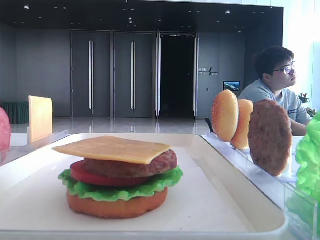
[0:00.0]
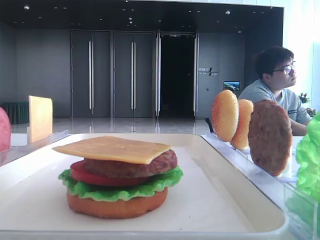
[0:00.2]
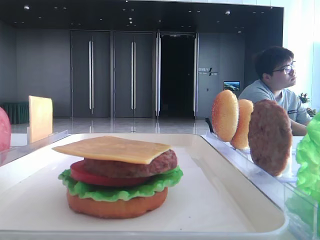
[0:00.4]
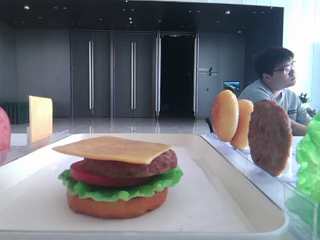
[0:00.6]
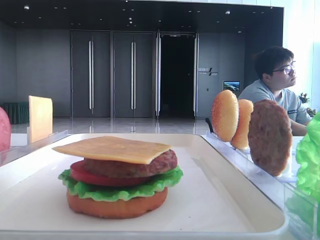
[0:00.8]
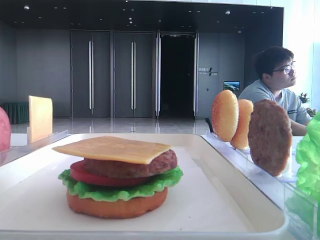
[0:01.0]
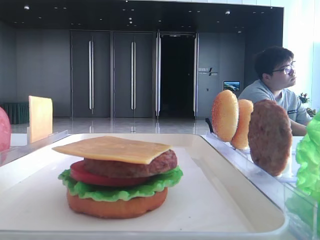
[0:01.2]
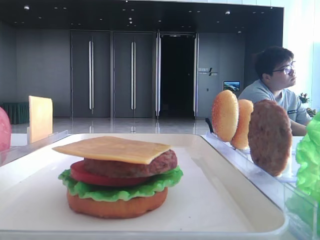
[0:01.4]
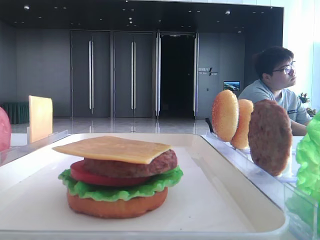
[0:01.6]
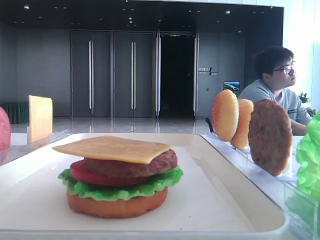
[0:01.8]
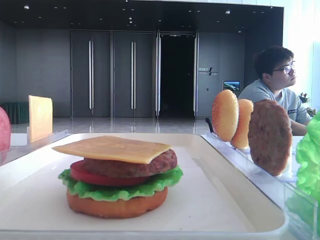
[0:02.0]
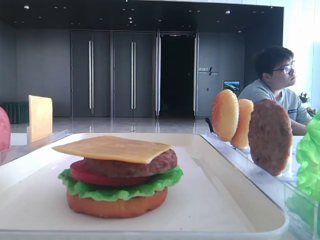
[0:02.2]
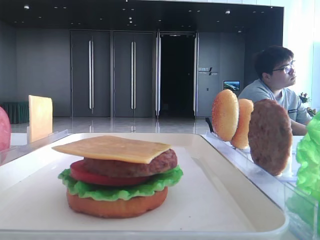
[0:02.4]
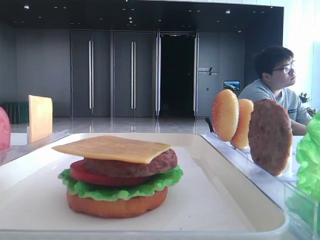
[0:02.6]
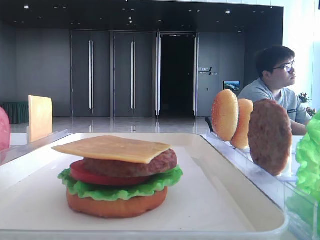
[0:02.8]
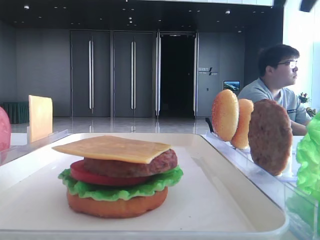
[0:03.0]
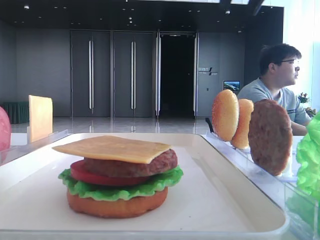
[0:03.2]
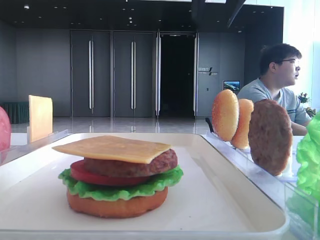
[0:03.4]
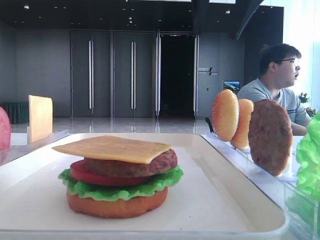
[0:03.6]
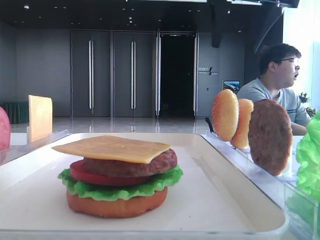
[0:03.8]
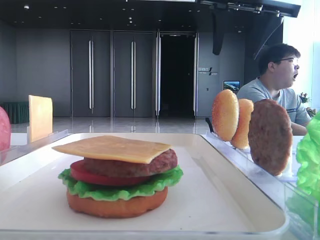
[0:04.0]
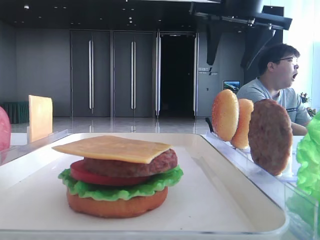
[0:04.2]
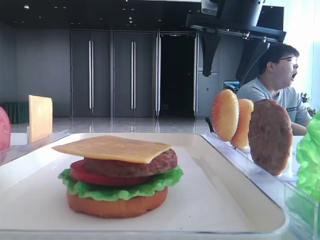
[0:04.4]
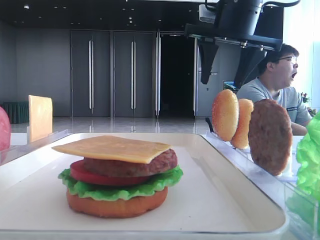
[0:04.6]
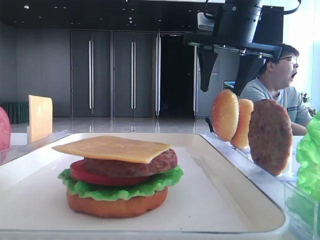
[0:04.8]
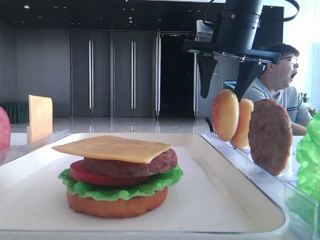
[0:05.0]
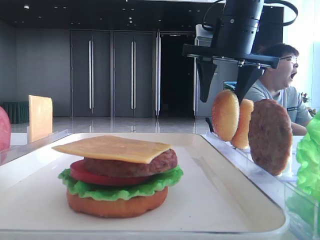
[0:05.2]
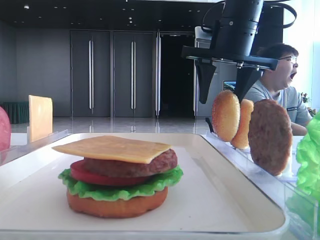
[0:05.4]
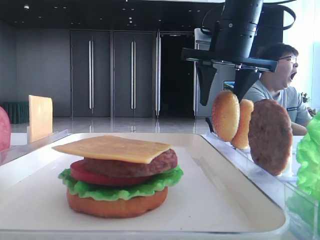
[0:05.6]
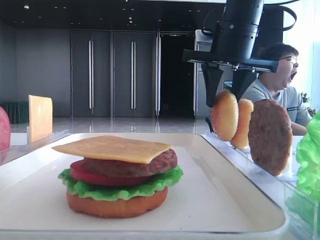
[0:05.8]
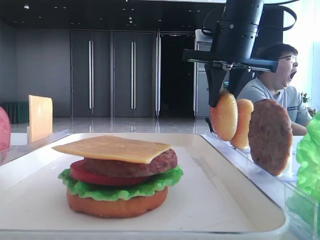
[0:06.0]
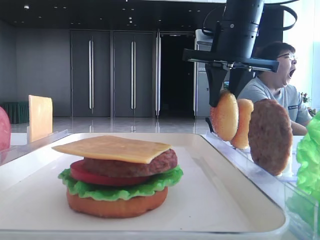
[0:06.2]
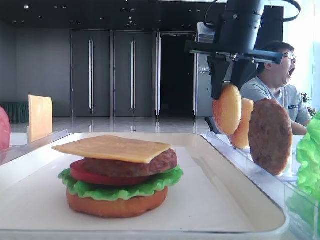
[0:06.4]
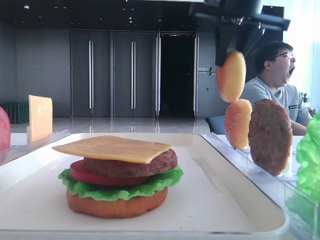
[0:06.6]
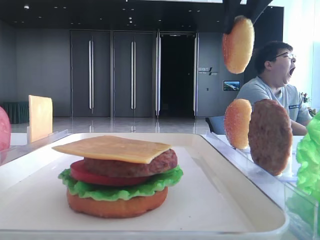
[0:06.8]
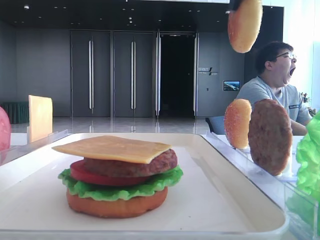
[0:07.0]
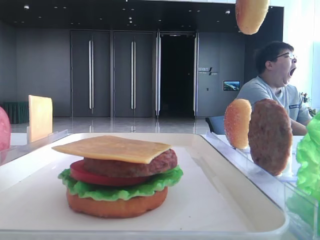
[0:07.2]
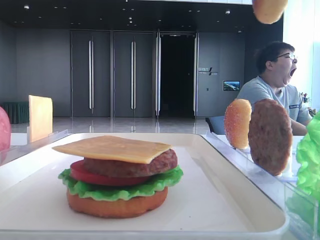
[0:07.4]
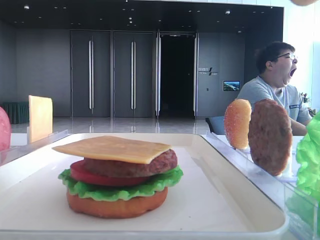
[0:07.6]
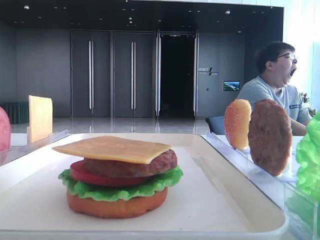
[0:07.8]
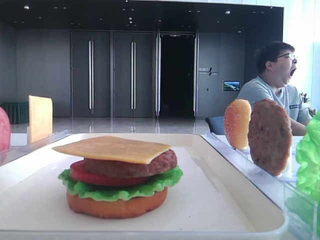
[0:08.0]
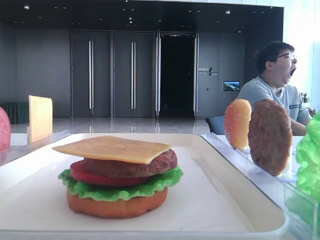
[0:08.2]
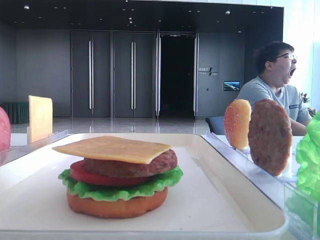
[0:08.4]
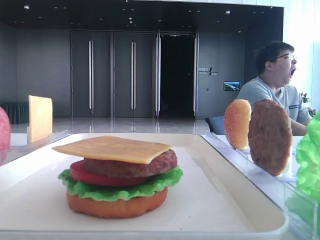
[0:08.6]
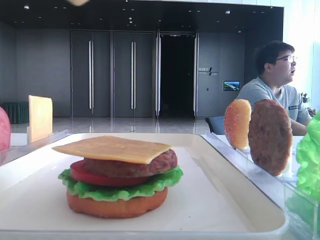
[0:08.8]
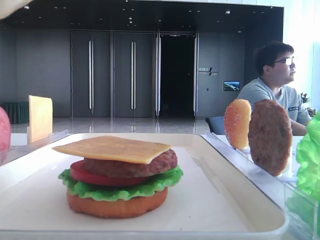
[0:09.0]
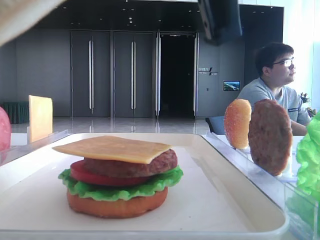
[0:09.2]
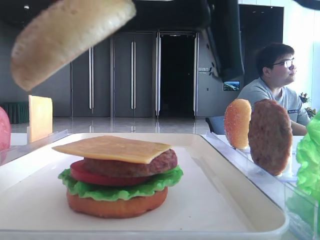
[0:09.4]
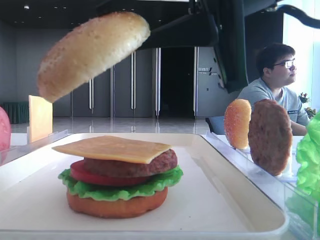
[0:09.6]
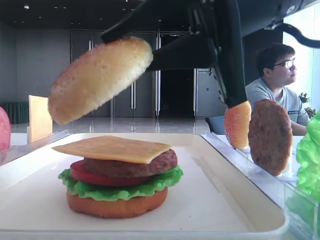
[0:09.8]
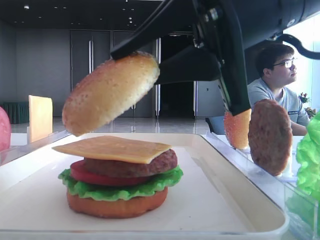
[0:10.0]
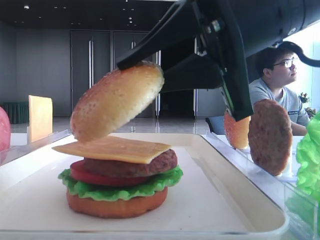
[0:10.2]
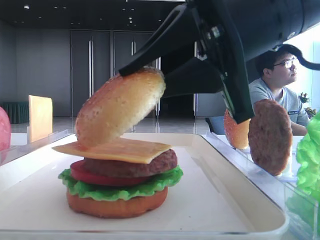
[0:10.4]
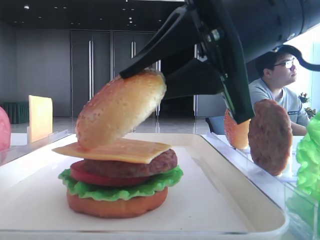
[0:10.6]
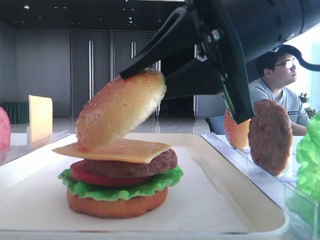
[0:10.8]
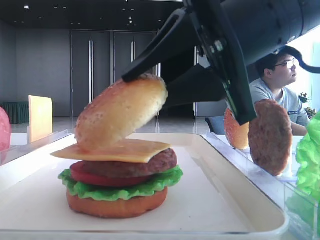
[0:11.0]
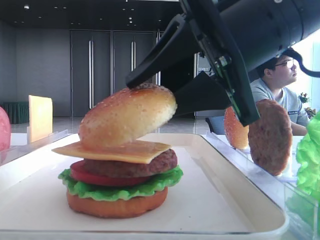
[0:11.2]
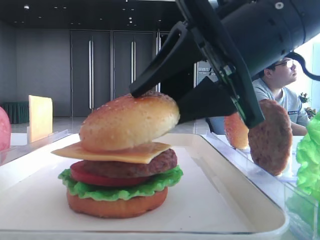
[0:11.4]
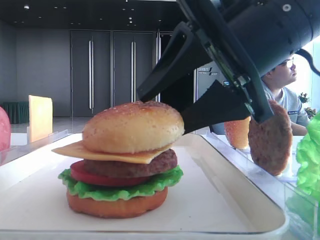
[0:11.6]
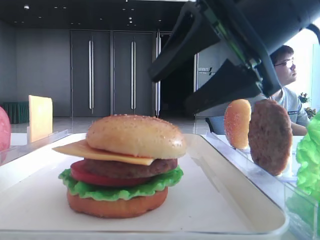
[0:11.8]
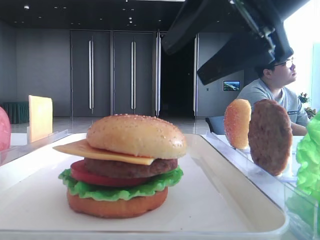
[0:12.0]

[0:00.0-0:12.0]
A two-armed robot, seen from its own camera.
Step, 0:00.0 to 0:06.0: Pick up the top bread slice with the right hand.
Step, 0:06.4 to 0:11.6: Place the top bread slice on the cheese with the right hand.
0:01.6 to 0:03.0: The right gripper heads forward, covering approximately 25 cm.
0:03.0 to 0:04.4: The right gripper travels downward, to the left and forward by roughly 15 cm, and opens up.
0:04.4 to 0:06.0: The right gripper shifts by approximately 5 cm, and closes.
0:06.0 to 0:07.6: The right gripper goes about 25 cm backward and upward.
0:07.6 to 0:09.0: The right gripper shifts some 15 cm downward, to the left and backward.
0:09.0 to 0:10.4: The right gripper heads forward and downward, covering approximately 15 cm.
0:10.4 to 0:12.0: The right gripper moves roughly 5 cm, and opens its fingers.

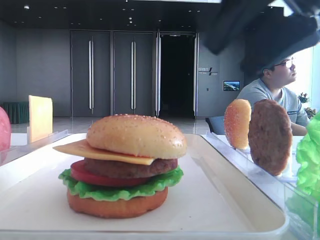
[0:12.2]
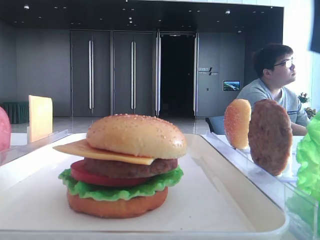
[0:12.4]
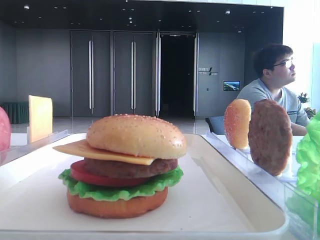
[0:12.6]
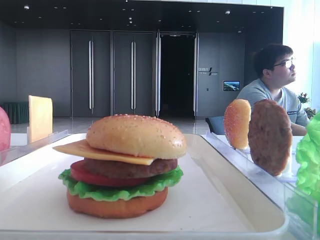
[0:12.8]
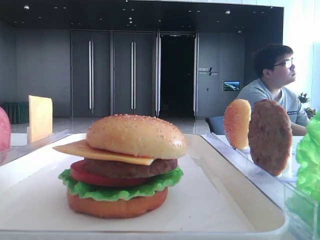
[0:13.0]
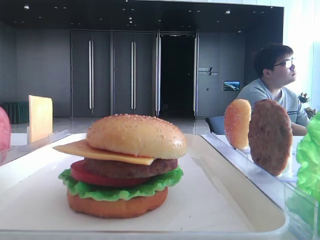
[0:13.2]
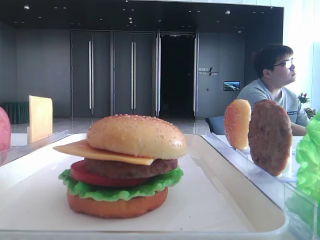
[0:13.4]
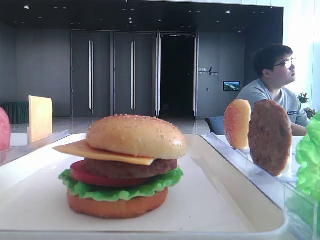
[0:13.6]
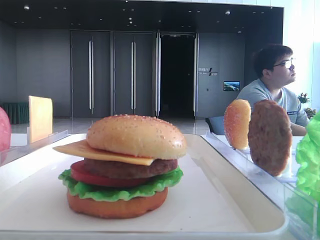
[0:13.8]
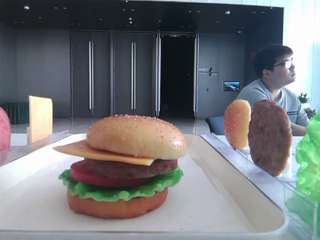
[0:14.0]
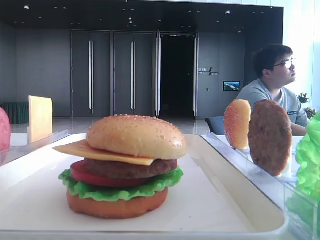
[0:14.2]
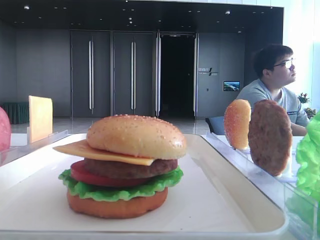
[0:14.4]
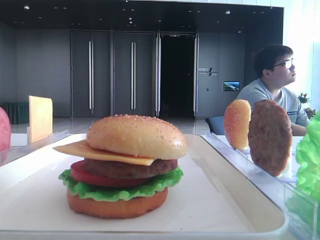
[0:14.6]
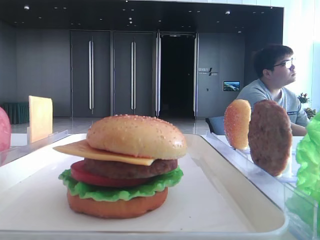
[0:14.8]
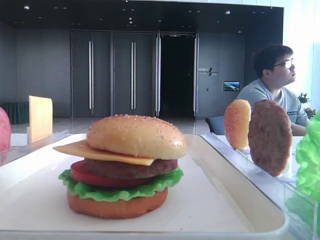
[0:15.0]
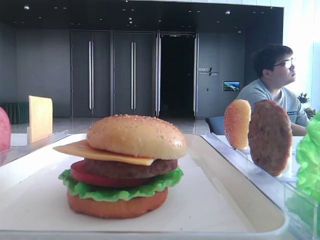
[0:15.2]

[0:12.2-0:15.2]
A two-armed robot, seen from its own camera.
0:12.2 to 0:13.8: The right gripper moves backward and to the right, some 30 cm.

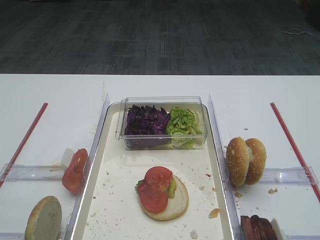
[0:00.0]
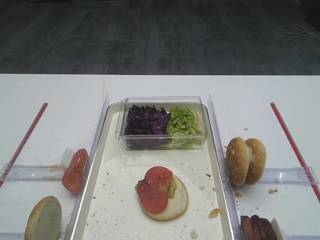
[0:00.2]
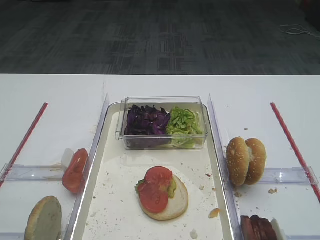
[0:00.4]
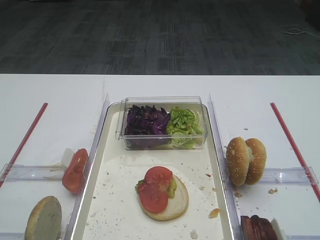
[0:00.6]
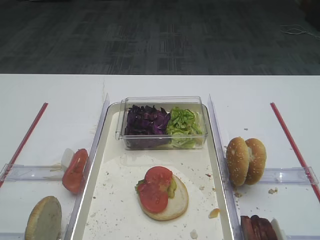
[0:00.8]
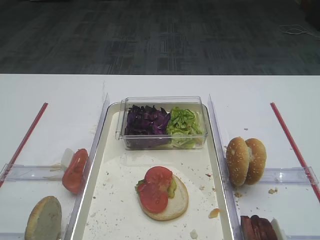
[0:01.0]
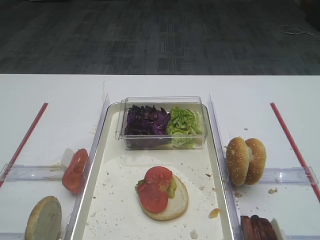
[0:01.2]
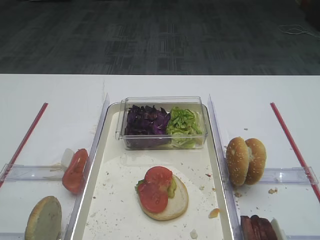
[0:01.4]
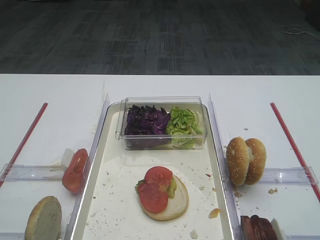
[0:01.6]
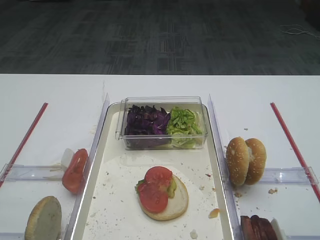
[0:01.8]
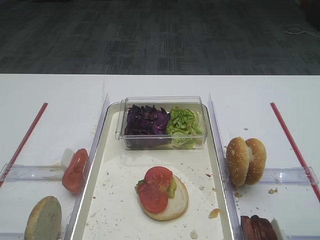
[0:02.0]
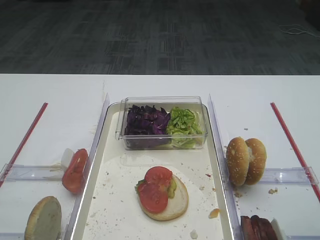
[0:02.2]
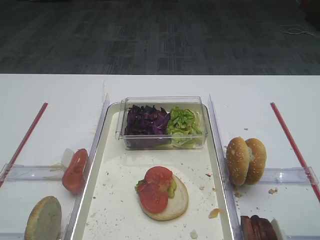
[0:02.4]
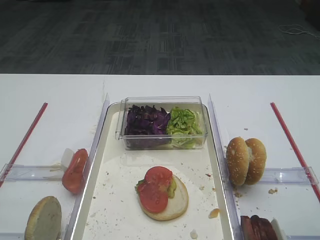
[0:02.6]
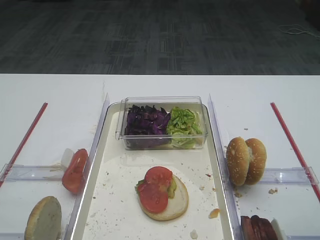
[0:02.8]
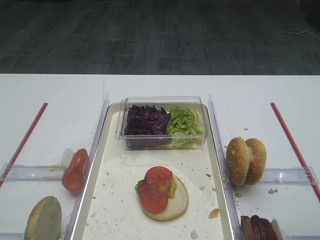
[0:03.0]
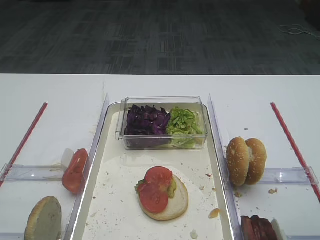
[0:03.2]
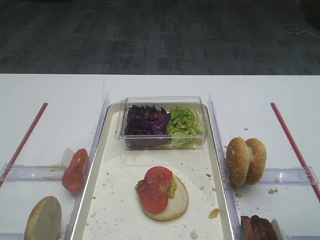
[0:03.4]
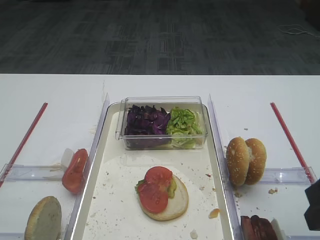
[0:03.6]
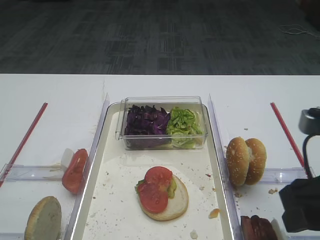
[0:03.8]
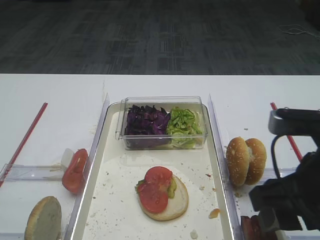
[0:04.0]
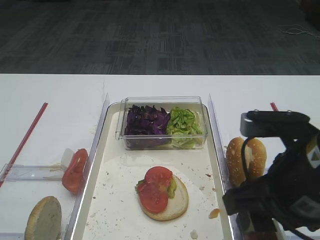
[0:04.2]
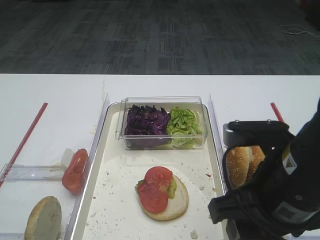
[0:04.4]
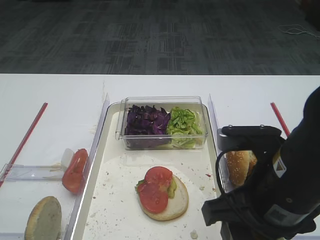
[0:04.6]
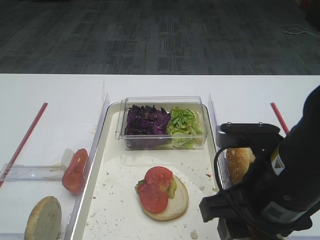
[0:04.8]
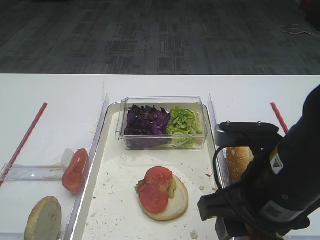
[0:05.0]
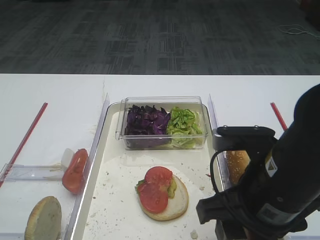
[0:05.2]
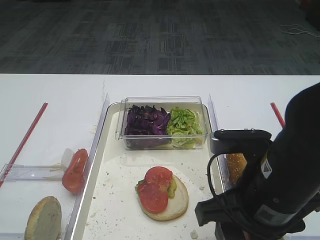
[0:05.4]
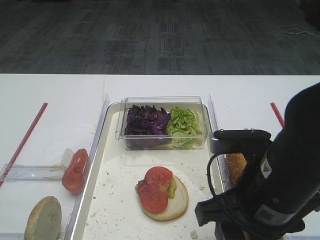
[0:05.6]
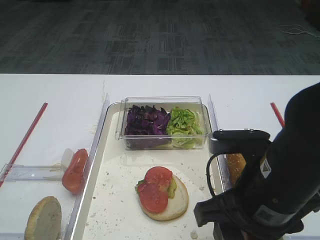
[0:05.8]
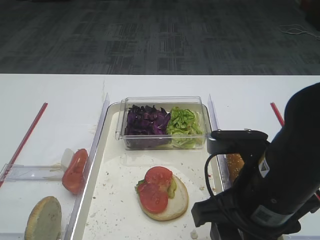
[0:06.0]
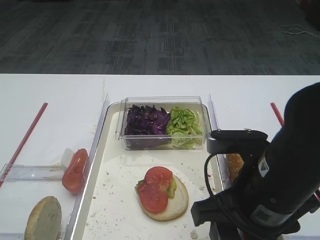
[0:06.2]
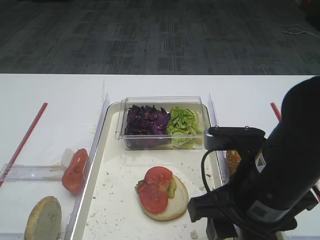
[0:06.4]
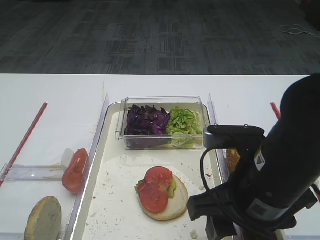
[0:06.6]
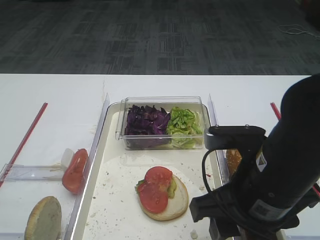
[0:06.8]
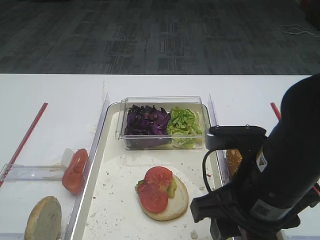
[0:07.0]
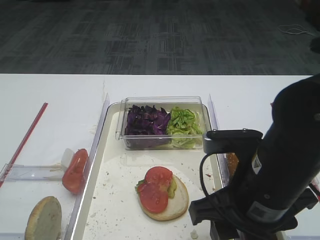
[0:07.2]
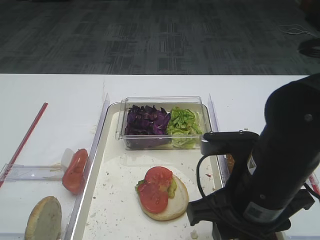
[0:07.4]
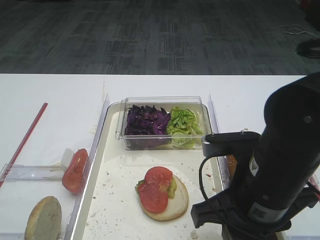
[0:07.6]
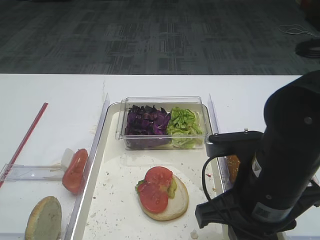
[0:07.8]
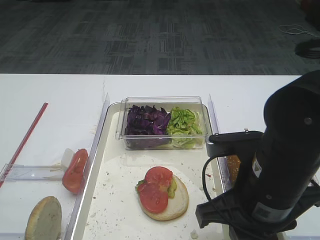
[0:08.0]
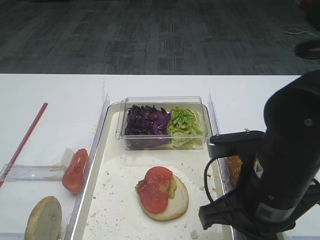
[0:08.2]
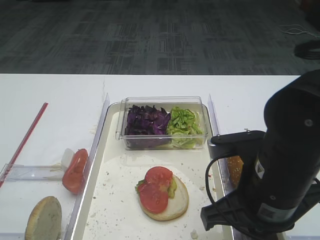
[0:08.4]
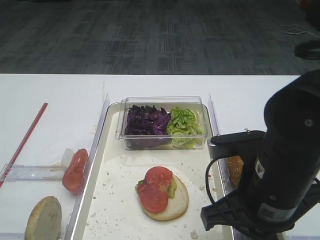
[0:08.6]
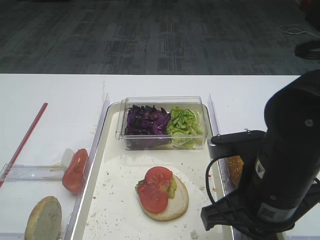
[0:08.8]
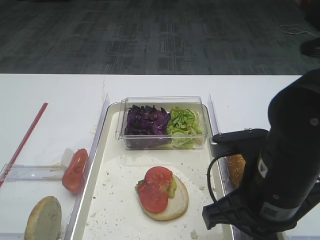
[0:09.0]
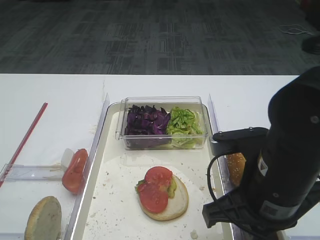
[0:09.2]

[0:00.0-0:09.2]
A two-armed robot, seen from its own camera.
0:03.0 to 0:04.6: The right gripper travels to the left by approximately 15 cm.
0:04.6 to 0:07.6: The grippers stay close to where they were, moving slightly.
0:07.6 to 0:09.2: The right gripper closes its fingers.
